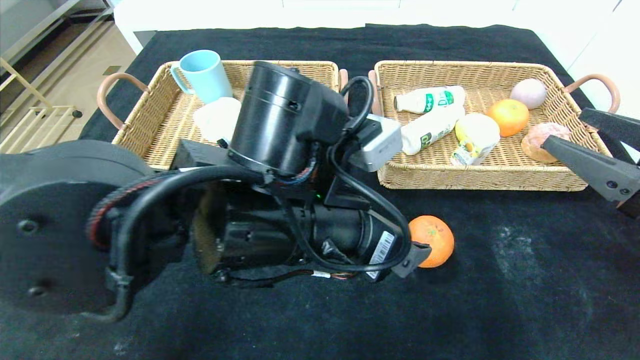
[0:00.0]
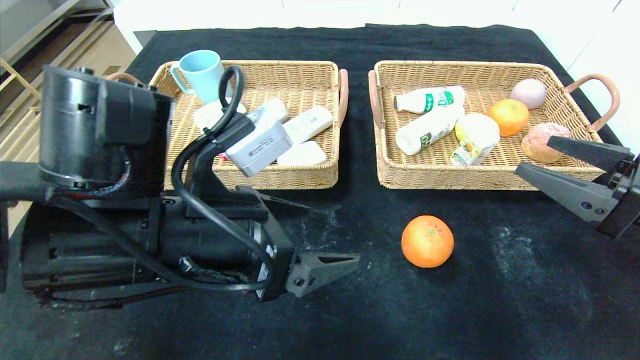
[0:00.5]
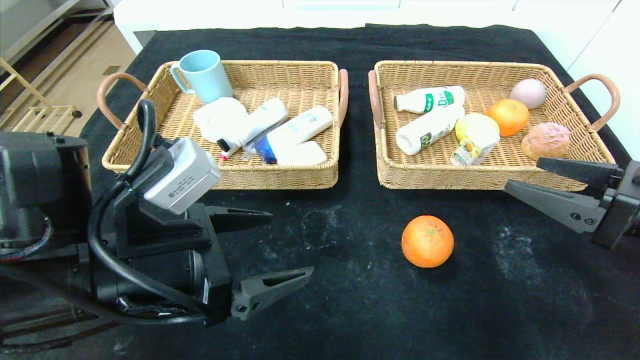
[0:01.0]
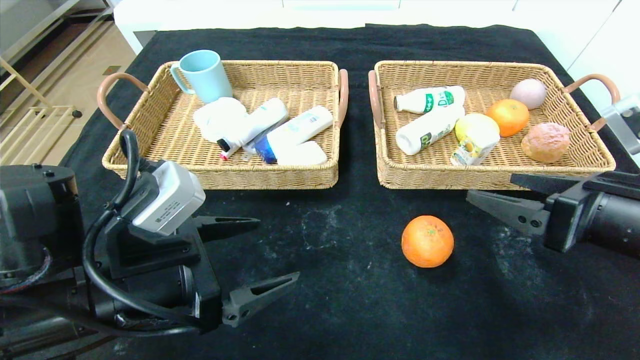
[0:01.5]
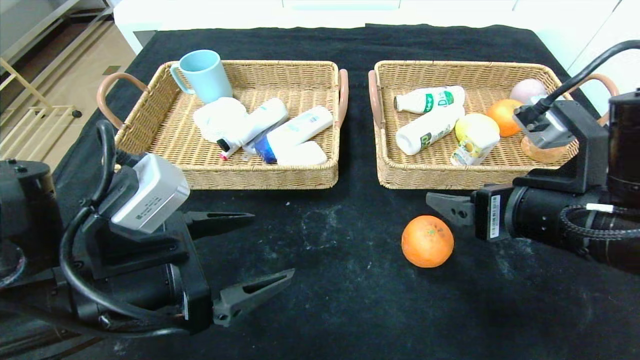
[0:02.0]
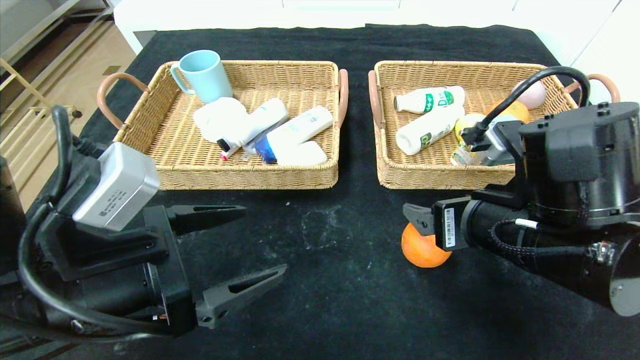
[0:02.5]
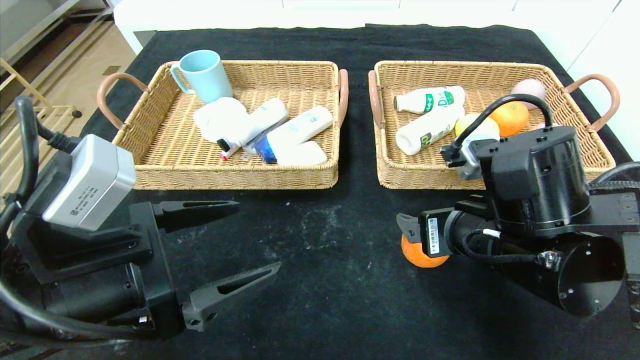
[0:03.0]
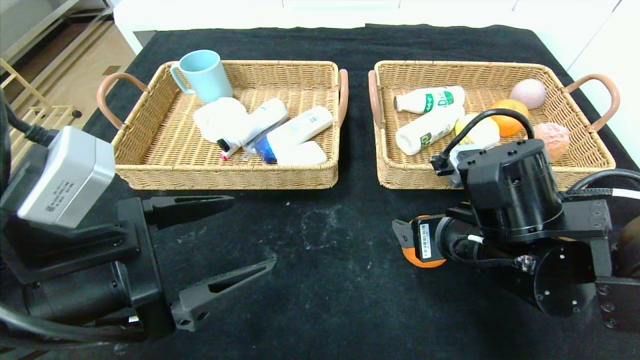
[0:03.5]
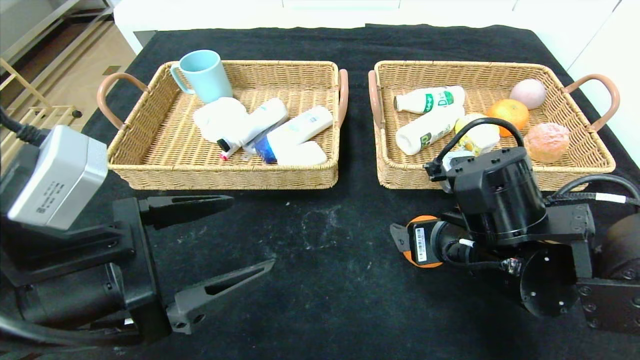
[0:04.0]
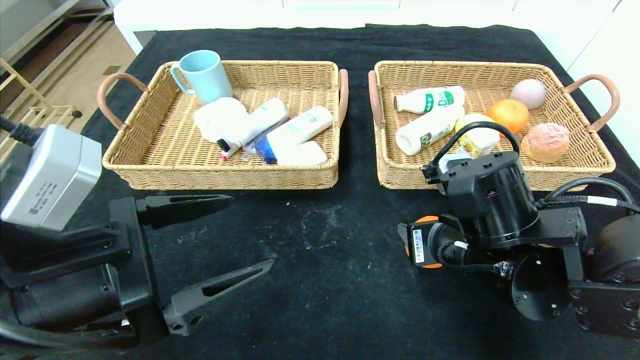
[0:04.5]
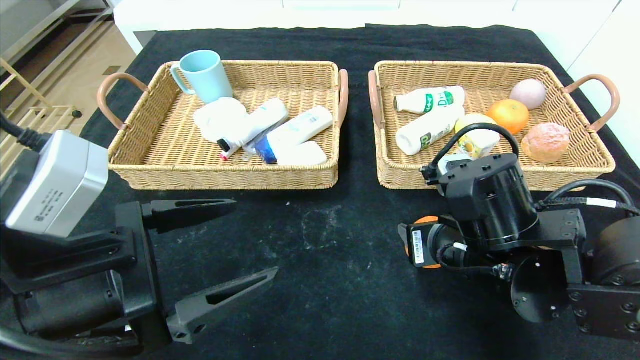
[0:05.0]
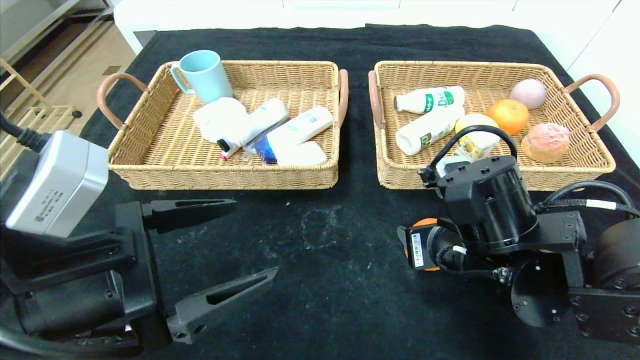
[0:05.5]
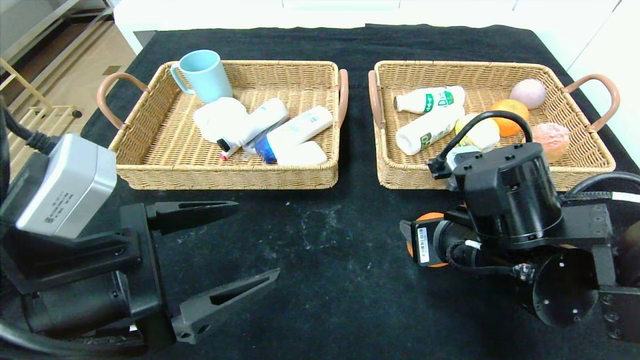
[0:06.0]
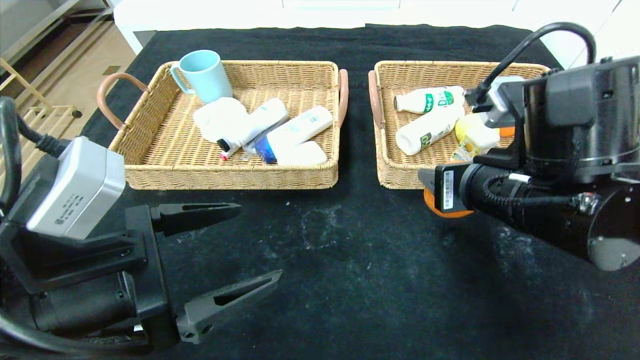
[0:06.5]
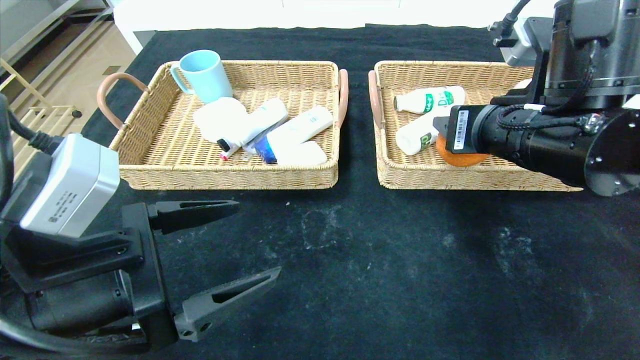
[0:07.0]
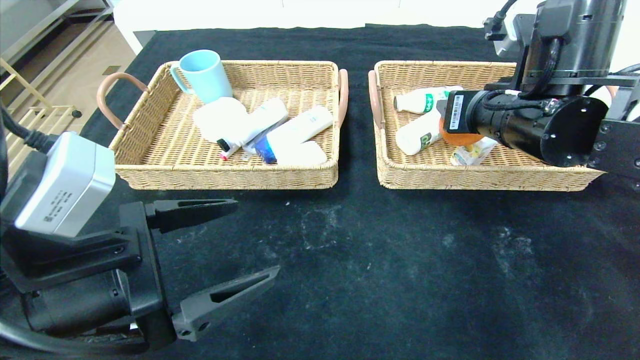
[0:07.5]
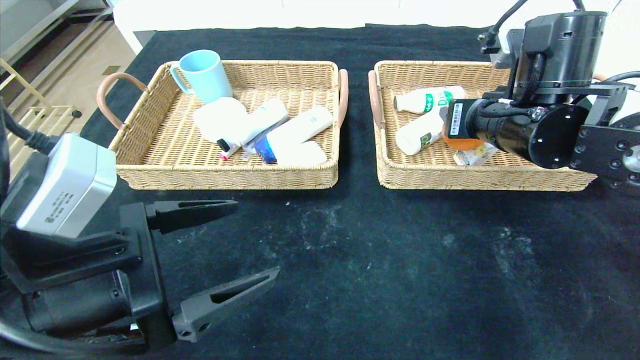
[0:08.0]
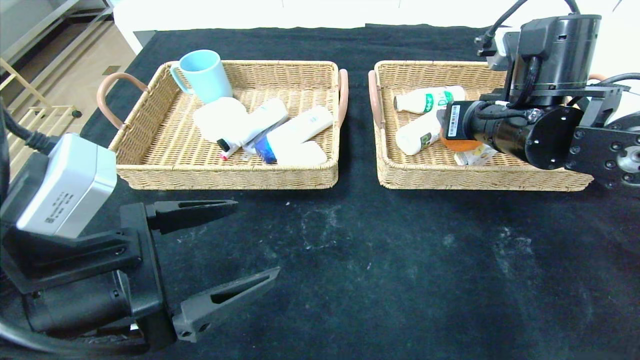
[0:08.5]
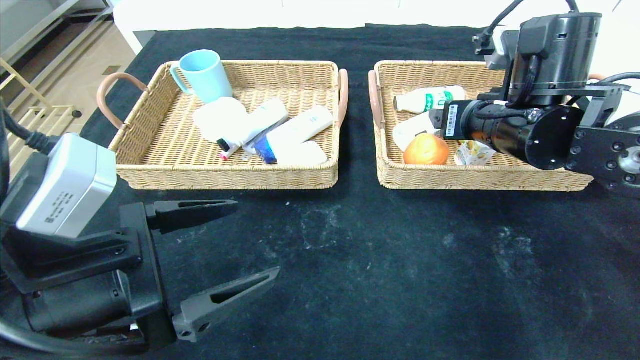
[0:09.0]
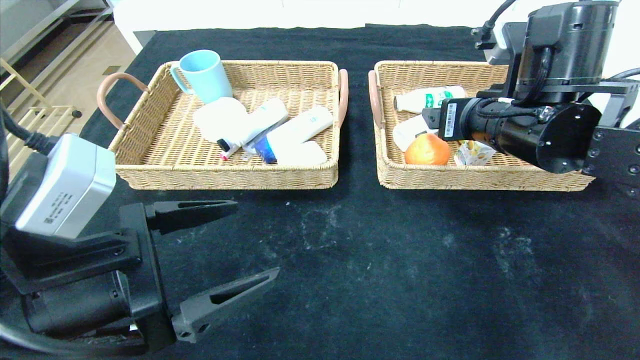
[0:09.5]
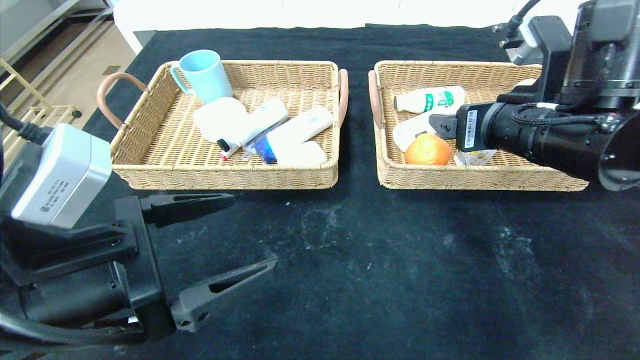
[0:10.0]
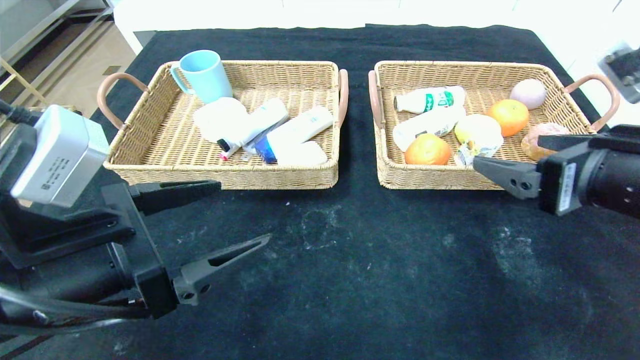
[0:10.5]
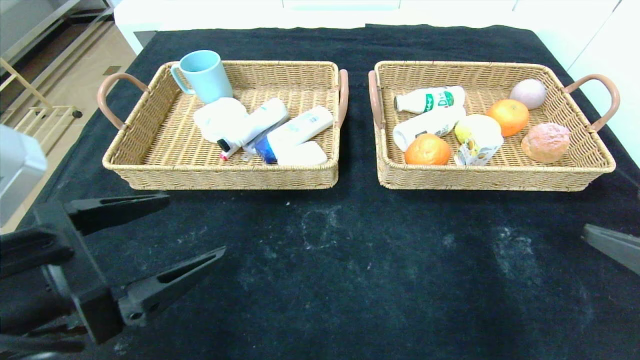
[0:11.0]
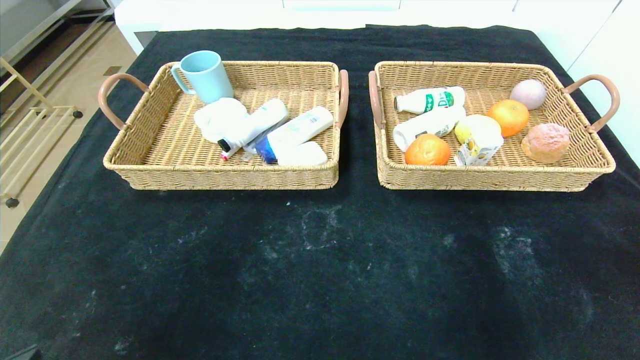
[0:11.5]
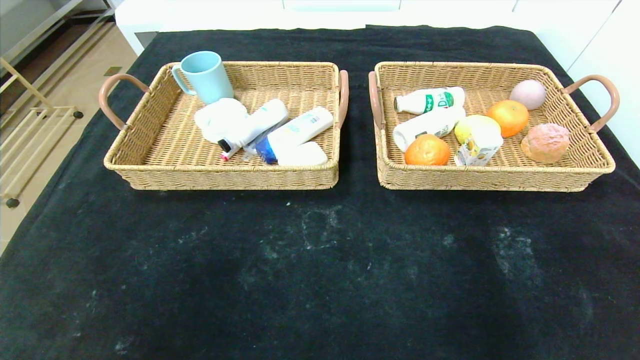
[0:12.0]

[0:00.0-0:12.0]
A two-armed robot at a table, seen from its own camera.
Step, 0:00.0 to 0:09.0: Grasp the orange and put it in the right basket.
0:00.0 to 0:02.0: Both grippers move to the left, some 15 cm.
0:02.0 to 0:04.0: The right gripper heads to the left and downward, covering about 10 cm.
0:04.0 to 0:06.0: The right gripper closes up.
0:06.0 to 0:08.0: The right gripper moves forward, upward and to the right, approximately 15 cm.
0:08.0 to 0:10.0: The right gripper heads backward, covering roughly 5 cm, and opens its fingers.
0:10.0 to 0:12.0: The right gripper heads backward and to the right, covering roughly 40 cm; the left gripper goes approximately 20 cm backward and to the left.

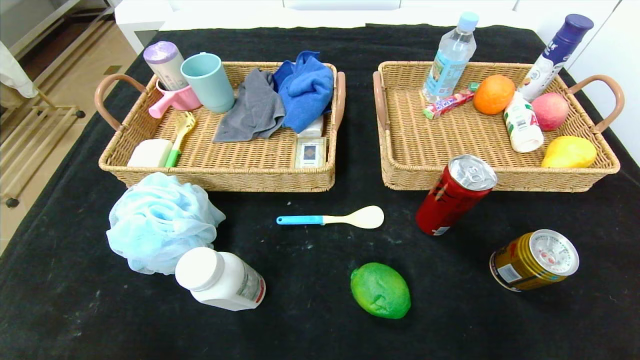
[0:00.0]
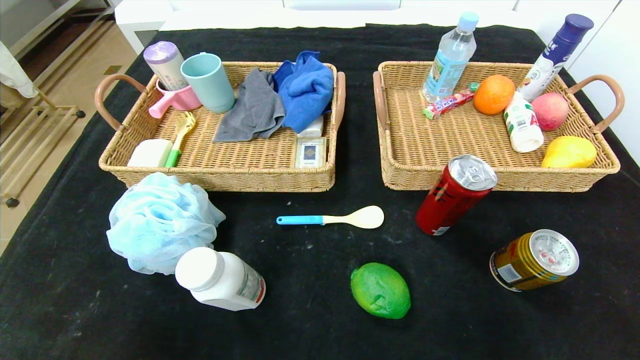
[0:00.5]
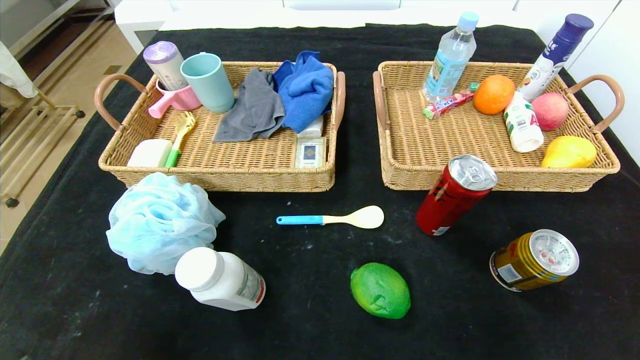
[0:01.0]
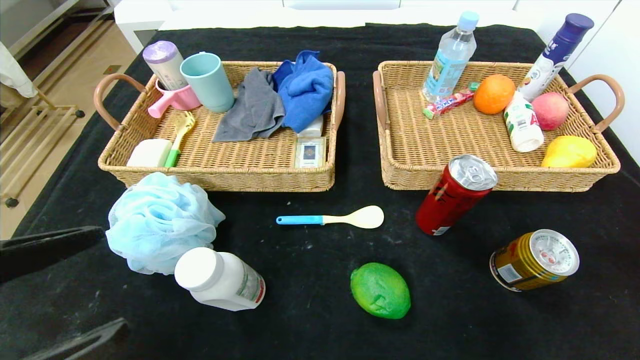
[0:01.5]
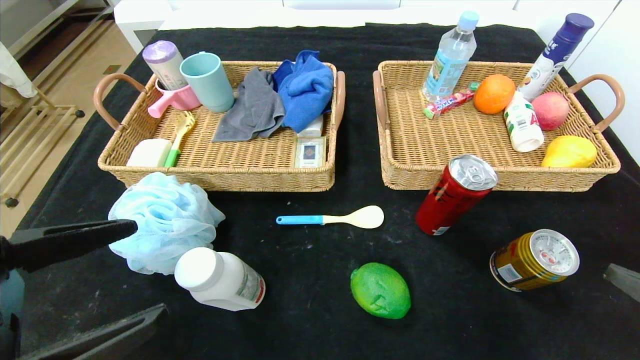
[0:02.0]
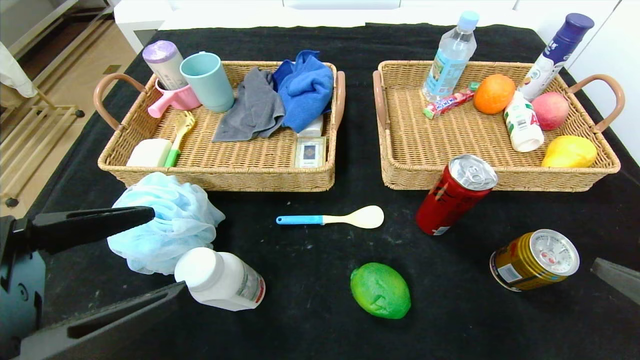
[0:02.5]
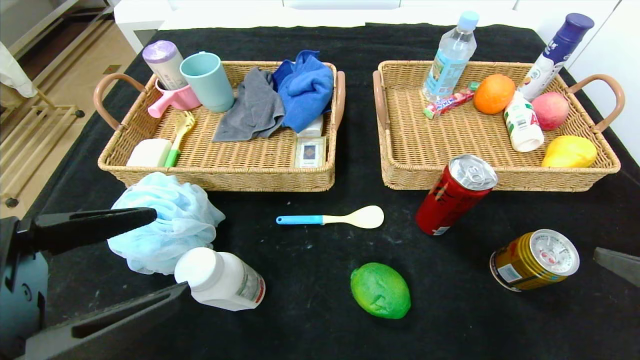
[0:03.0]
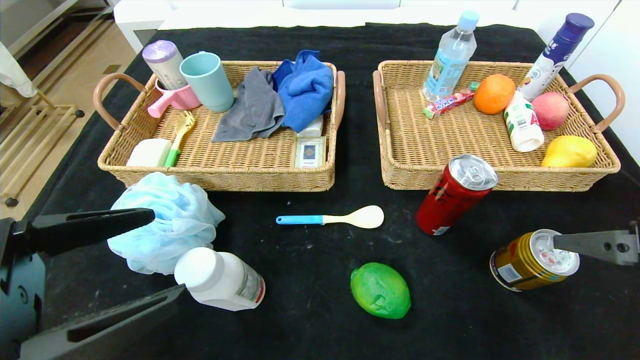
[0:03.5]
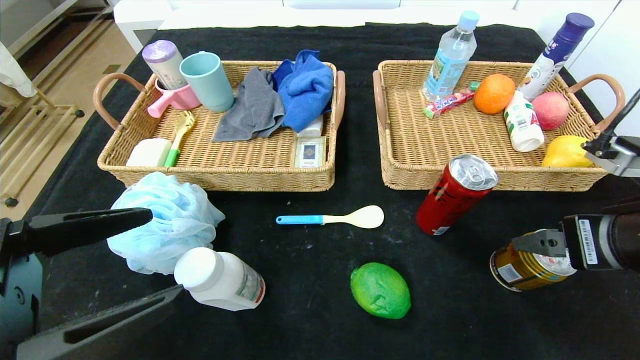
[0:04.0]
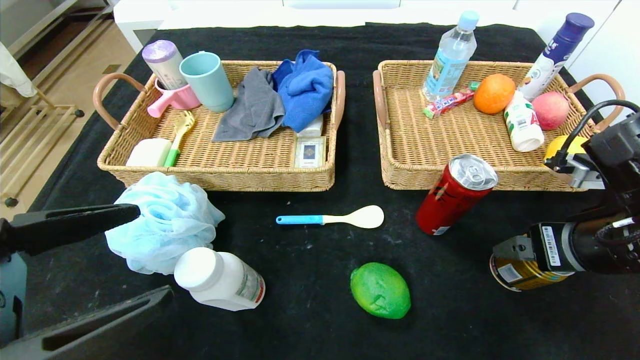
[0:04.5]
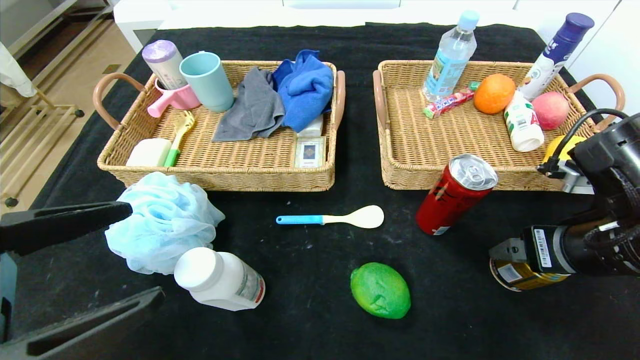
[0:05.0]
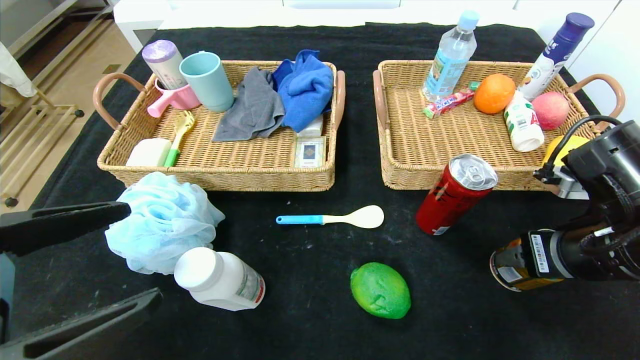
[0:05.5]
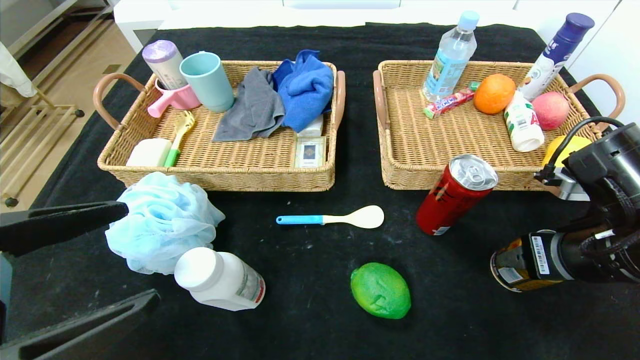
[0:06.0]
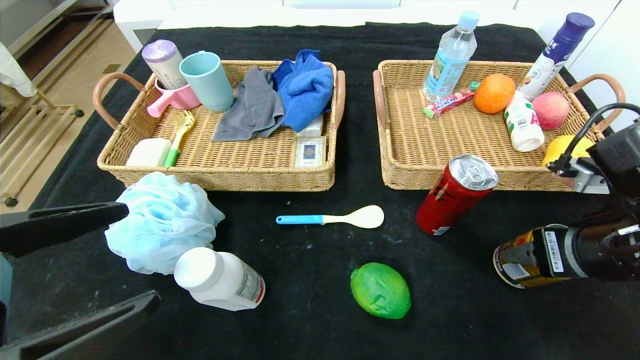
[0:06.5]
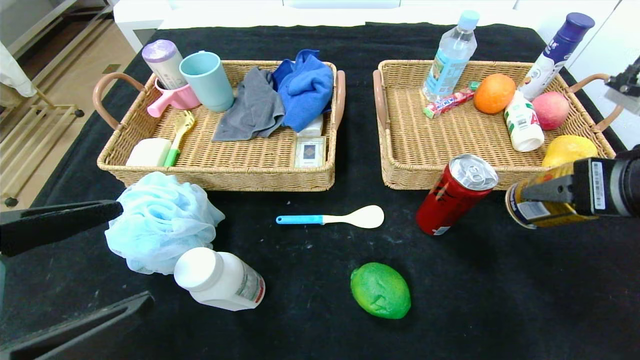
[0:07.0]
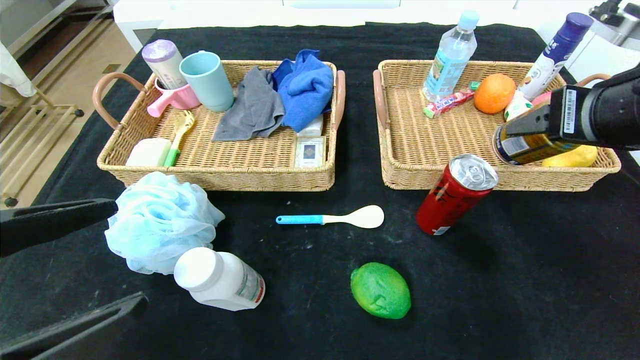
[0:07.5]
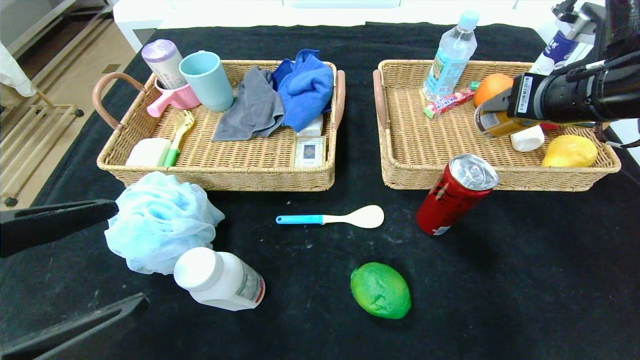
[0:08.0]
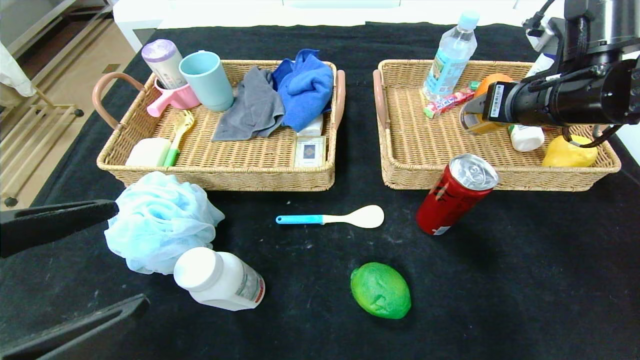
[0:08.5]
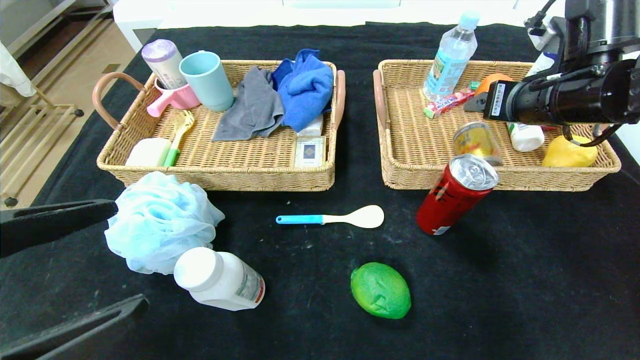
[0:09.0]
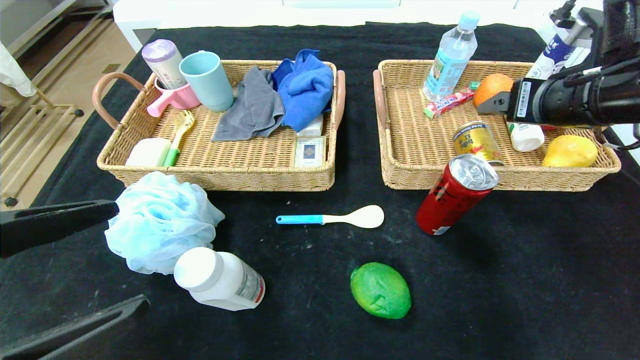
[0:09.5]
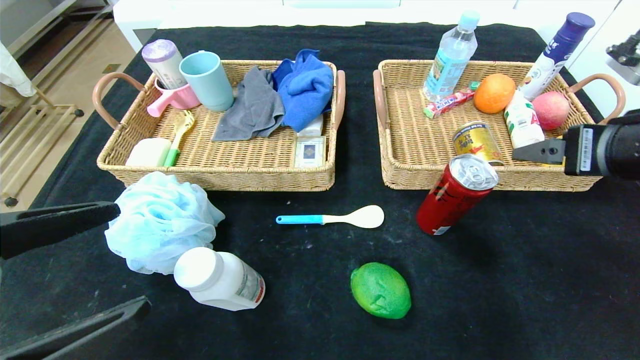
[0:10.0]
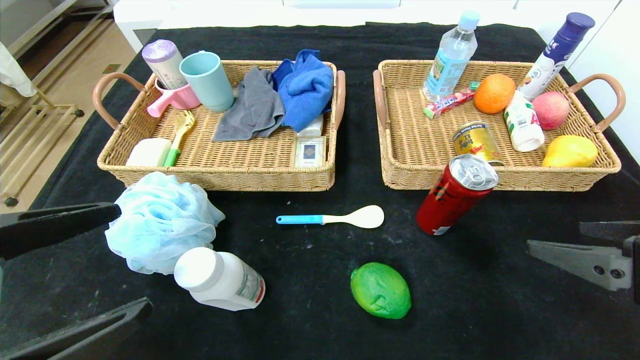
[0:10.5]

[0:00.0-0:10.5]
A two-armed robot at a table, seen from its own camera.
Step, 0:00.0 to 0:09.0: Grasp the Red Bull and put it in the right basket.
0:00.0 to 0:02.0: Both grippers travel together upward and forward, about 20 cm.
0:02.0 to 0:04.0: The right gripper heads forward and to the left, covering some 10 cm.
0:04.0 to 0:06.5: The right gripper closes.
0:06.5 to 0:08.5: The right gripper goes approximately 15 cm forward and upward.
0:08.5 to 0:10.5: The right gripper moves backward, about 20 cm, and opens its fingers.
